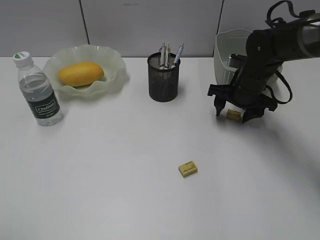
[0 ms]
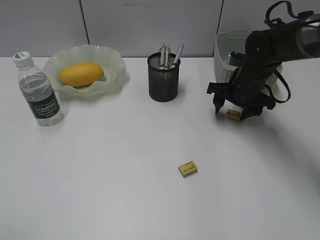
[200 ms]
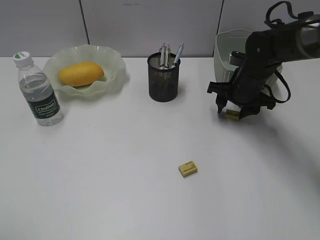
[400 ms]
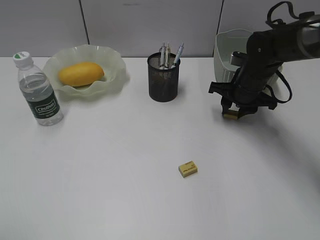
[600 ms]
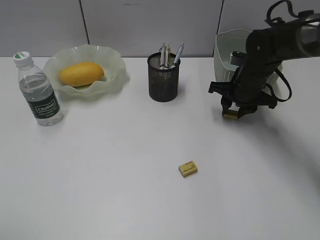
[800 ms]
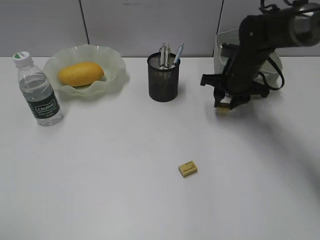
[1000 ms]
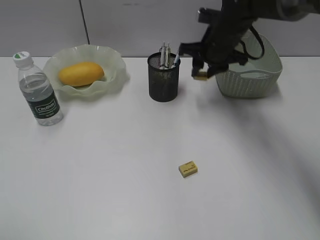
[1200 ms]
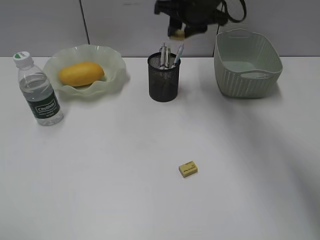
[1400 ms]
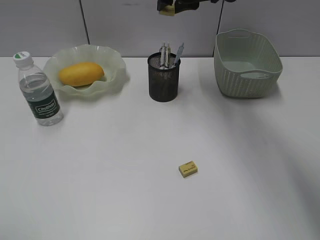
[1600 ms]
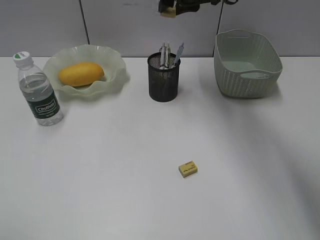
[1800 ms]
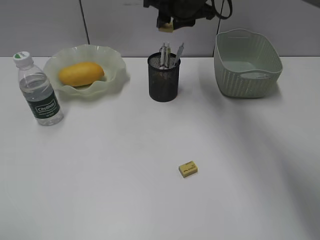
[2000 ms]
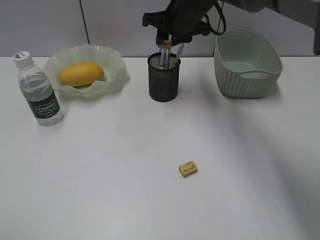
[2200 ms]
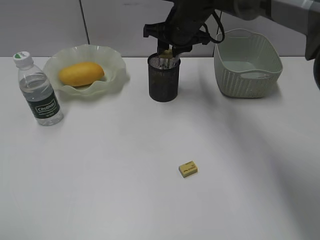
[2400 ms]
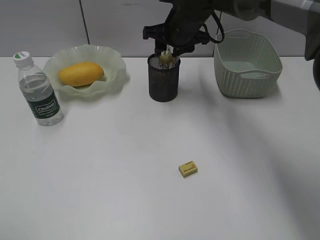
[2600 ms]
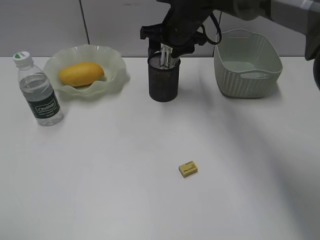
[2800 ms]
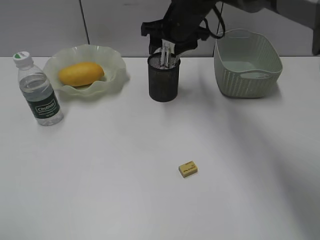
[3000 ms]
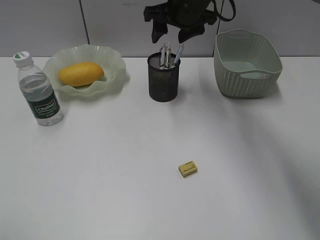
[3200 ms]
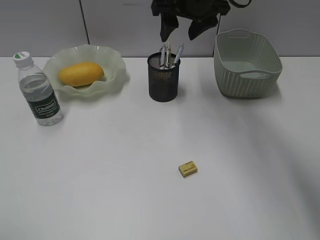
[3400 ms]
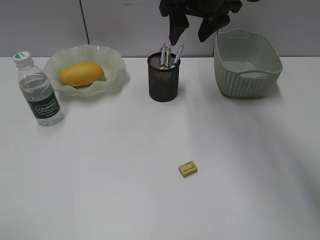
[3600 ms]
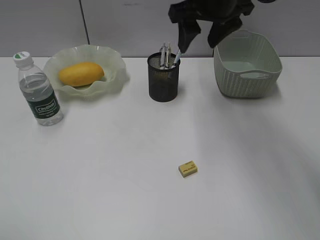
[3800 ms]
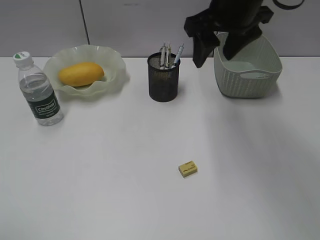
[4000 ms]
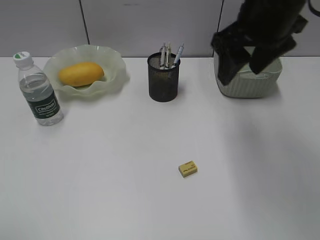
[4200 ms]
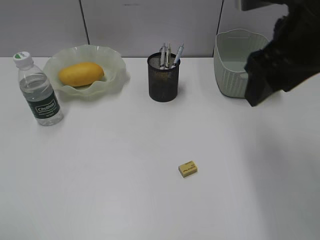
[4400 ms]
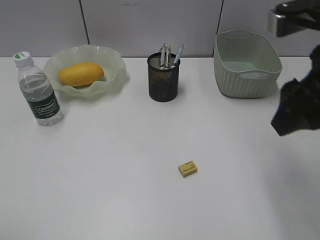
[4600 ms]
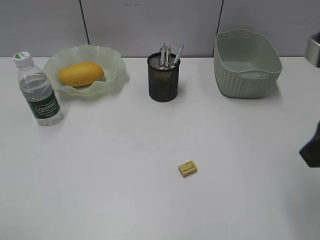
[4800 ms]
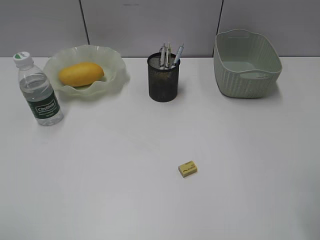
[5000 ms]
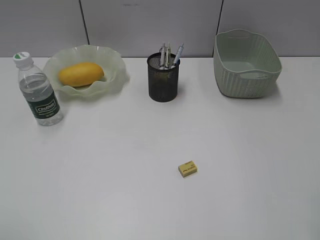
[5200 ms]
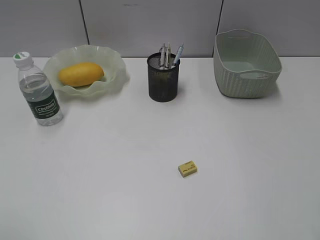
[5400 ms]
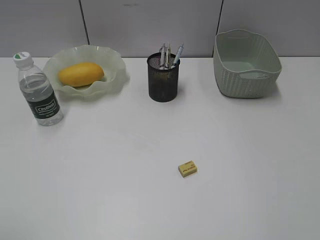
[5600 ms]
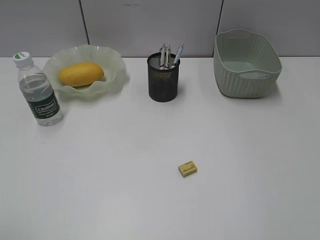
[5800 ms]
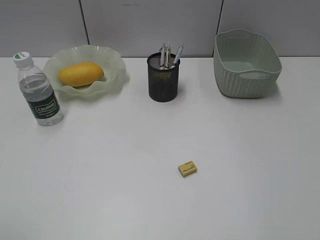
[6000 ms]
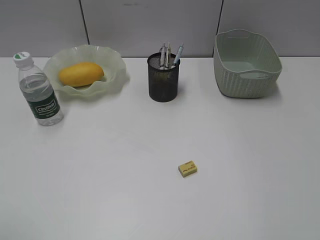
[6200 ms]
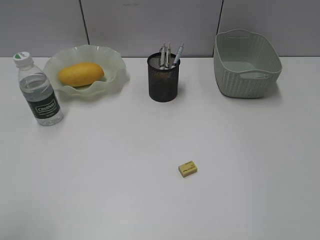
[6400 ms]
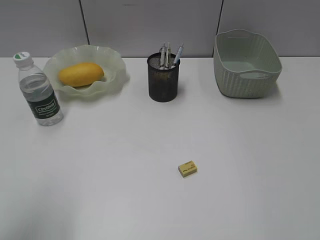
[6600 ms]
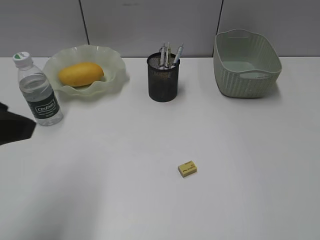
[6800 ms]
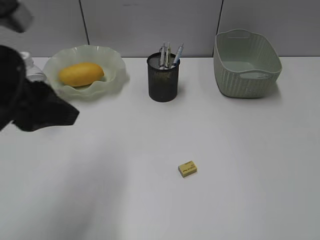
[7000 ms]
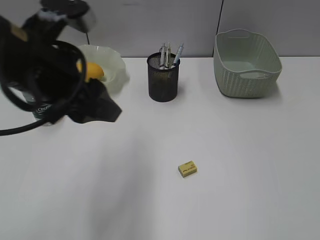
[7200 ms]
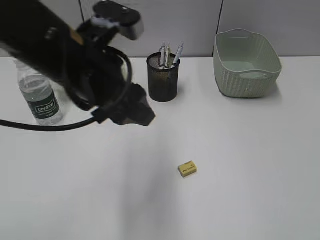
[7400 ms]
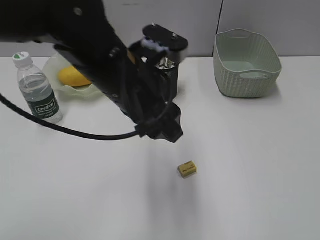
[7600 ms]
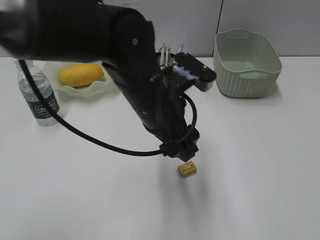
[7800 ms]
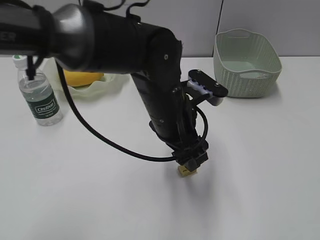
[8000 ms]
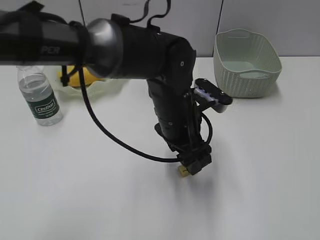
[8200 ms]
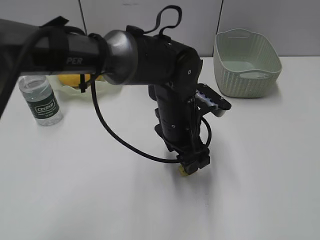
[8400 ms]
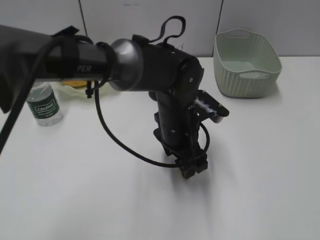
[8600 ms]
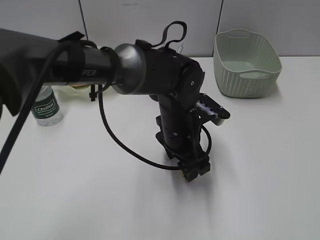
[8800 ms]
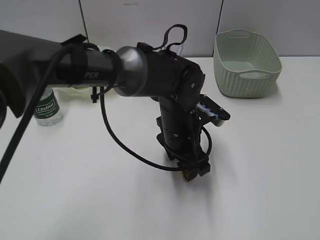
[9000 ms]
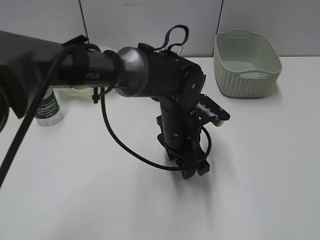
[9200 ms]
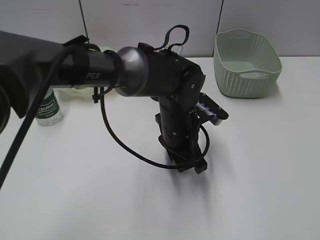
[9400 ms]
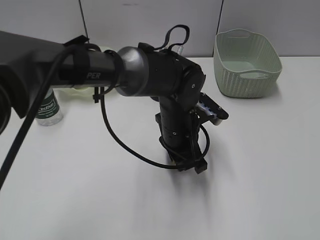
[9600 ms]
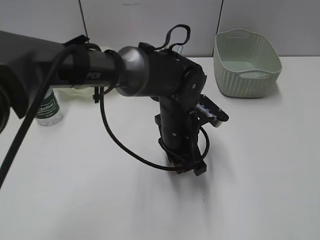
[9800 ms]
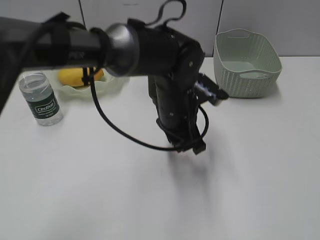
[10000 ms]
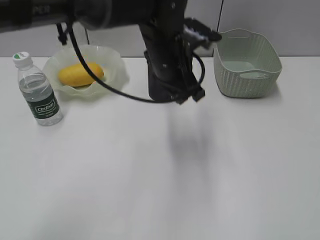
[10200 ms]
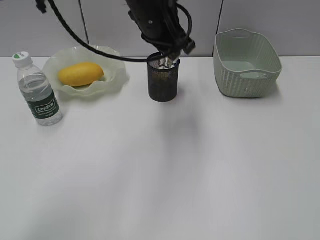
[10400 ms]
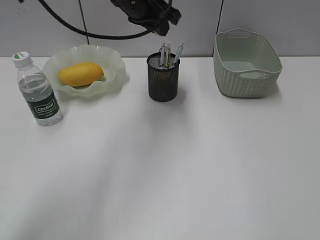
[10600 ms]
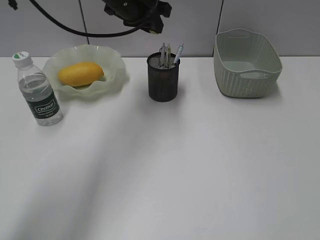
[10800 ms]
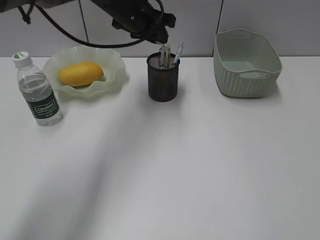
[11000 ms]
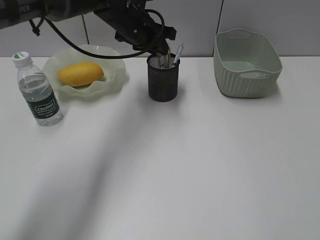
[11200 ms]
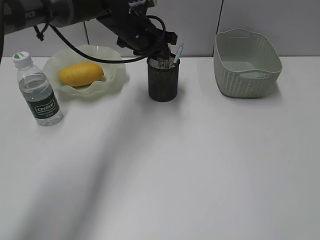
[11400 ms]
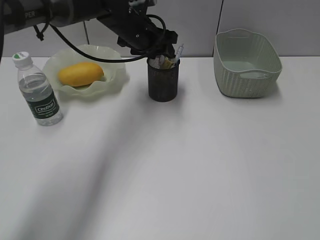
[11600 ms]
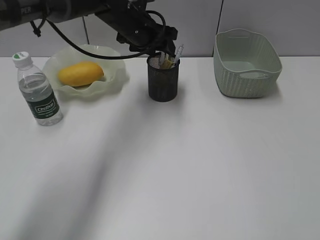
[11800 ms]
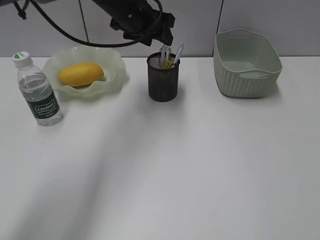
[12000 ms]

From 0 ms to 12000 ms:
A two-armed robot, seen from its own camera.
Step, from 800 ms to 2600 ms: Place the eraser in pen holder with right gripper.
Step, from 2800 ms to 9600 ms: Grasp the eraser with left gripper.
Step, from 9800 ms to 11800 ms: Place the eraser in pen holder with left gripper.
From 0 ms to 1600 ms: The right gripper goes approximately 25 cm upward and to the left, and closes.
From 1600 ms to 3000 ms: The right gripper shifts some 5 cm downward, and opens up.
From 3000 ms to 4400 ms: The right gripper goes roughly 25 cm backward, to the right and upward.
From 4400 ms to 6000 ms: The right gripper moves backward and to the right, roughly 25 cm.
From 6000 ms to 7600 ms: The left gripper heads to the right and forward, covering about 35 cm.
From 7600 ms to 9000 ms: The left gripper shifts approximately 15 cm downward and to the right.
From 9000 ms to 10400 ms: The left gripper moves upward and forward, approximately 20 cm, and closes its fingers.
From 10400 ms to 12000 ms: The left gripper travels forward by approximately 5 cm, goes downward and returns, about 5 cm each way, and opens up.

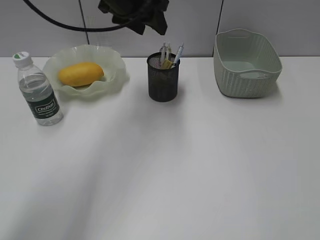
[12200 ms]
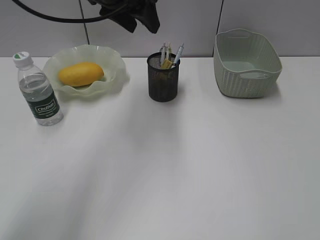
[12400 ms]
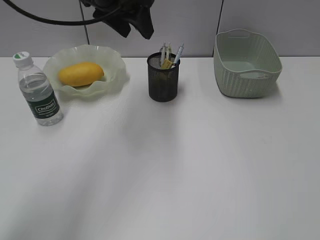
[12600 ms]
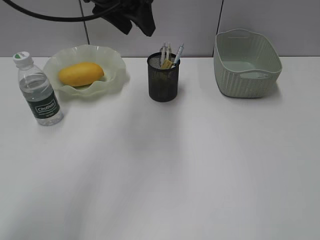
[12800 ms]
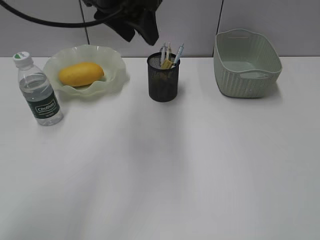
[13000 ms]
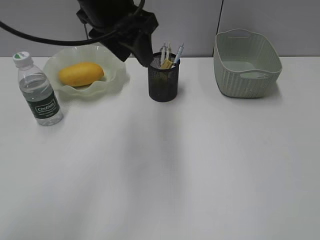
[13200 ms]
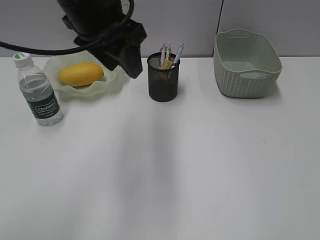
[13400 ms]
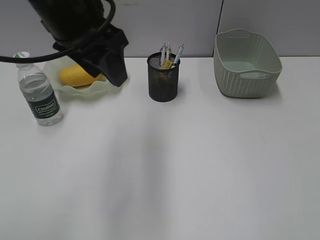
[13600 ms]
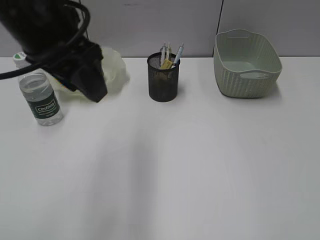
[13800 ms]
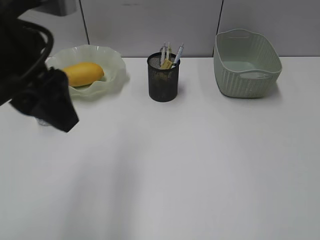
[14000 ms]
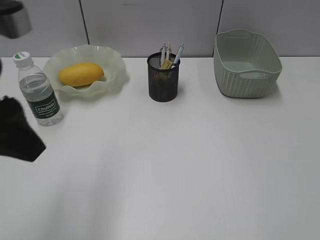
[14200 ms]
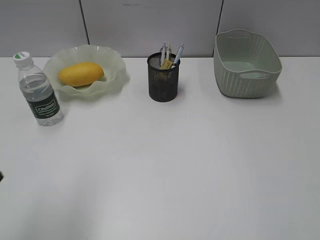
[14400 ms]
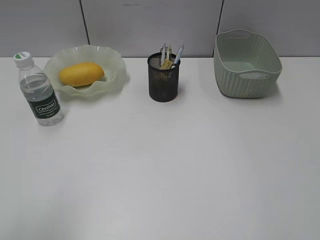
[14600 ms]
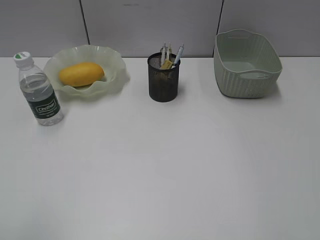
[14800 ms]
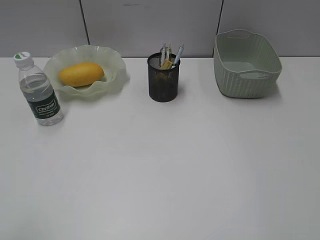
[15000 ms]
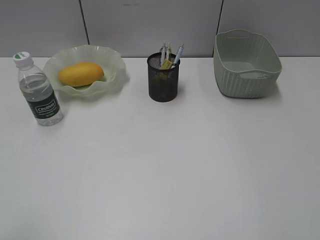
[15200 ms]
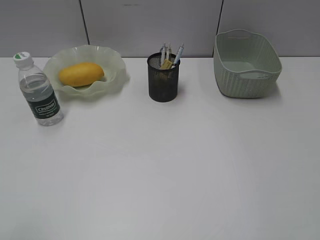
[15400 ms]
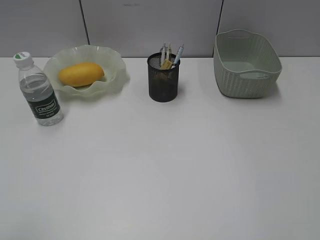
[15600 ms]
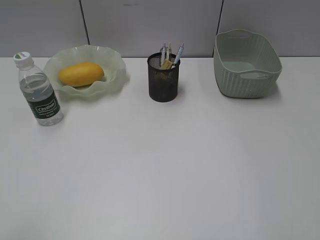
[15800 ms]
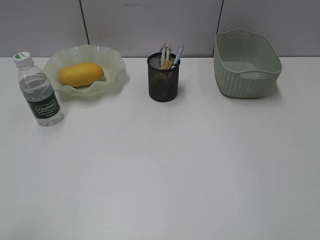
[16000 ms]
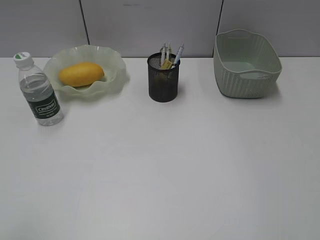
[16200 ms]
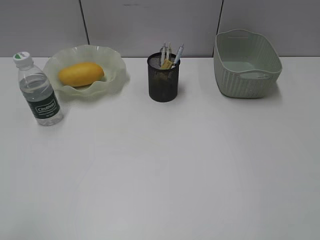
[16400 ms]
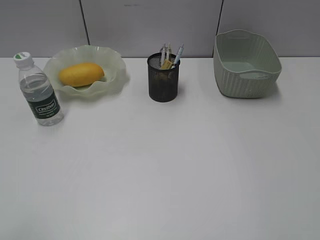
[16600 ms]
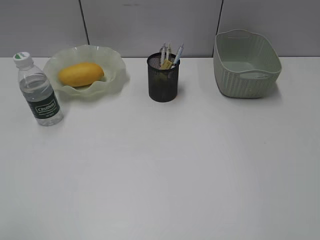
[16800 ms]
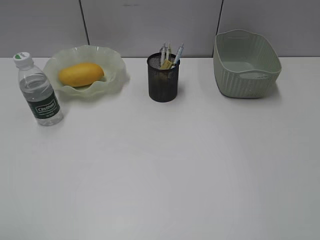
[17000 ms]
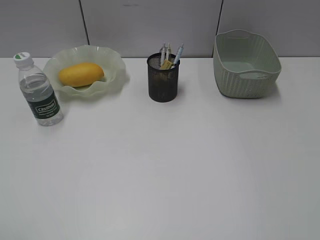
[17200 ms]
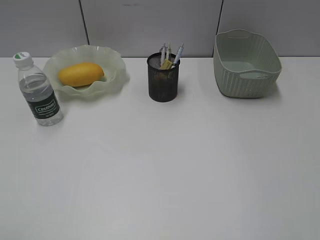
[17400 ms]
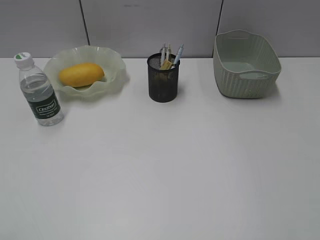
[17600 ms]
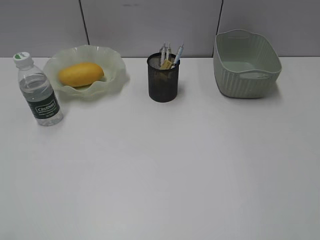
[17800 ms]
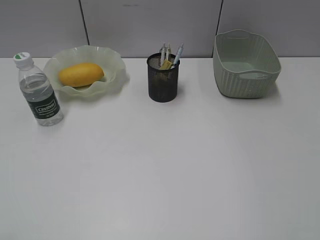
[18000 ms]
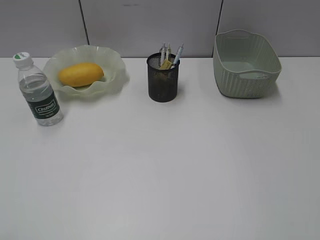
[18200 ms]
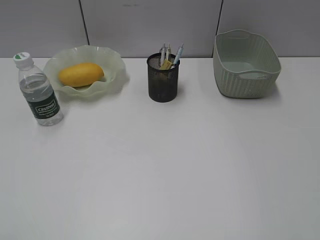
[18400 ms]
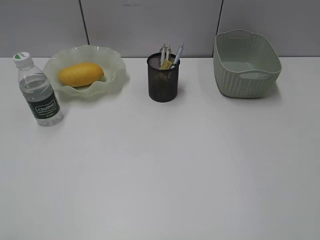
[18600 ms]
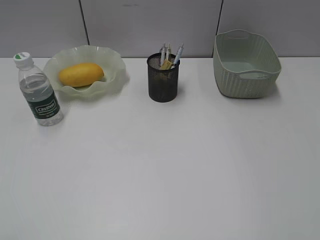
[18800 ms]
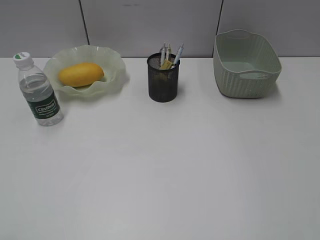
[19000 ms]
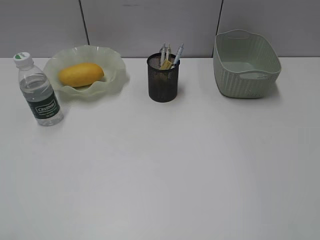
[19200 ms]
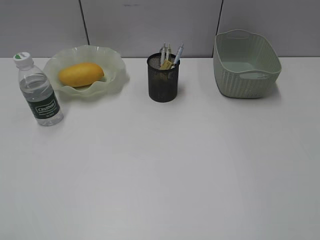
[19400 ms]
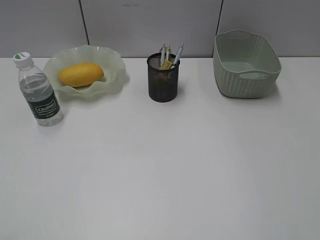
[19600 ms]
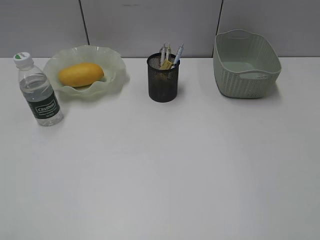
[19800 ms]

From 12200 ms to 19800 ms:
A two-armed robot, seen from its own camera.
From 12200 ms to 13800 ms: The left gripper is displaced backward by roughly 20 cm.
From 13800 ms to 15200 ms: The left gripper is displaced backward and to the left by some 30 cm.
From 18200 ms to 19800 ms: Both grippers stay put.

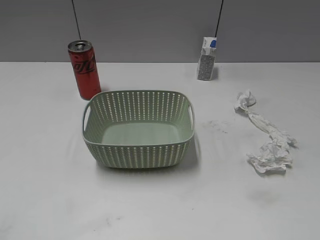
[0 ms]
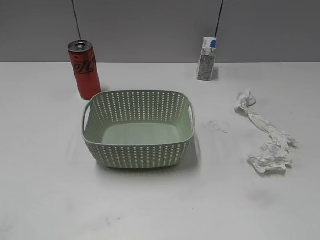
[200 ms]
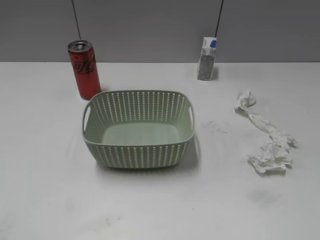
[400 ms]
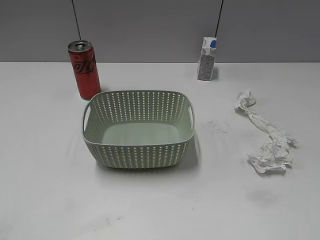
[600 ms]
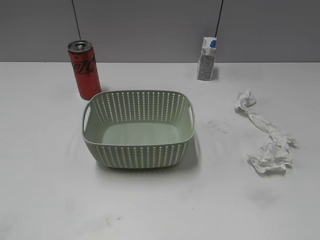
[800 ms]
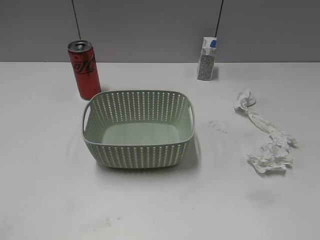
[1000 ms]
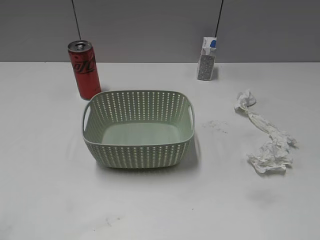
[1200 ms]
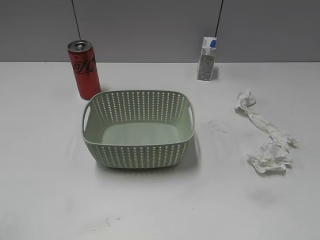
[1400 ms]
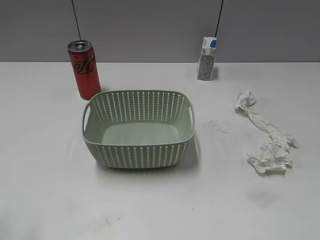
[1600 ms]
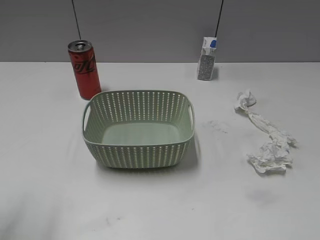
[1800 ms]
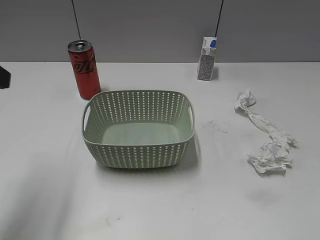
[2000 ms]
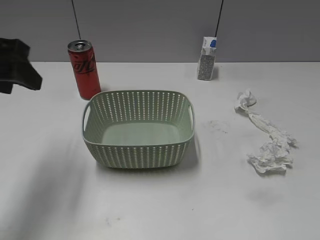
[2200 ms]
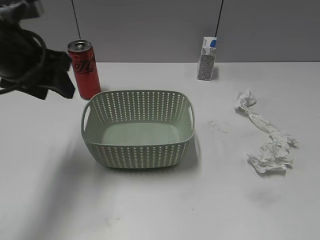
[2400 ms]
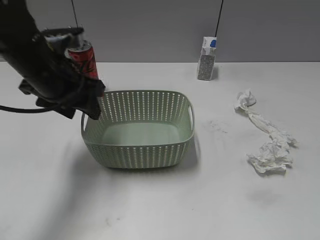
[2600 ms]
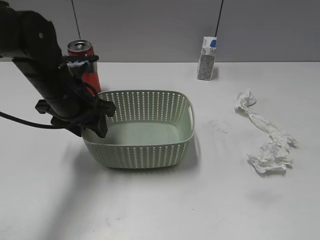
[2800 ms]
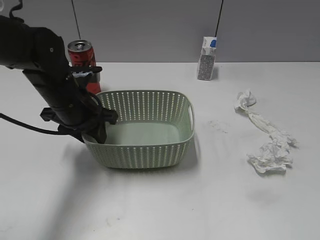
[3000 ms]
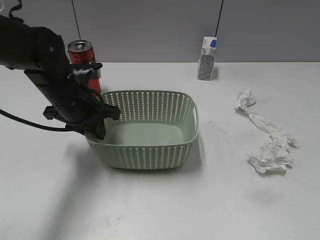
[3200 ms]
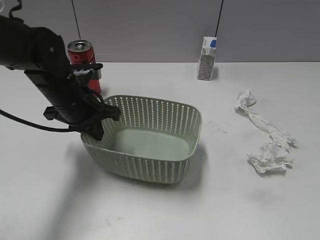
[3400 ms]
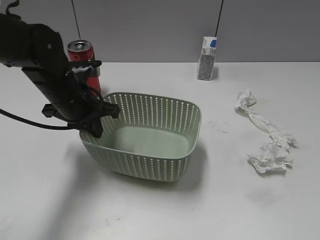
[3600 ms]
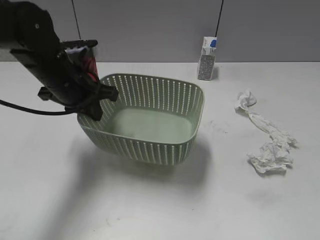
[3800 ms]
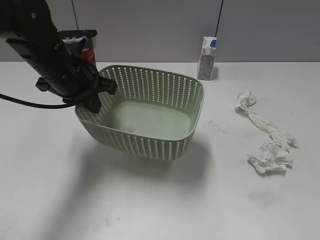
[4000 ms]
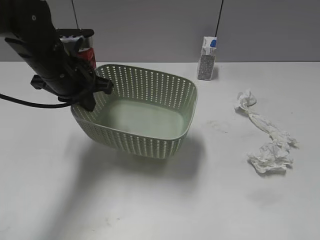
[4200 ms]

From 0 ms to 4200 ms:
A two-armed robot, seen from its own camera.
Step, from 1600 ms to 3400 ms: Grasp the basket with left gripper.
Step, from 3600 ms to 3800 ms: Lift the basket with left gripper.
From 1400 ms to 2800 ms: The left gripper goes roughly 35 cm forward, to the right and downward.
From 2800 ms to 4200 ms: The right gripper shifts some 5 cm forward. Meanwhile the left gripper closes up.
